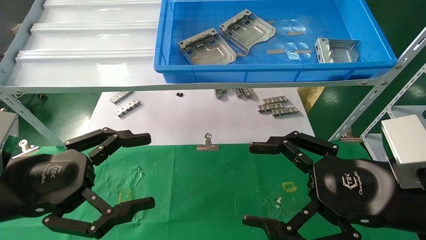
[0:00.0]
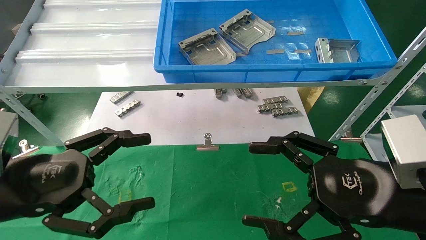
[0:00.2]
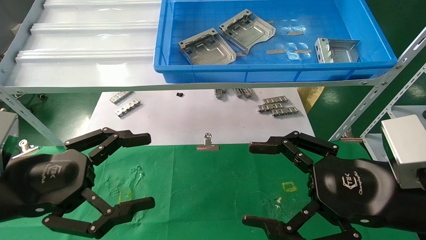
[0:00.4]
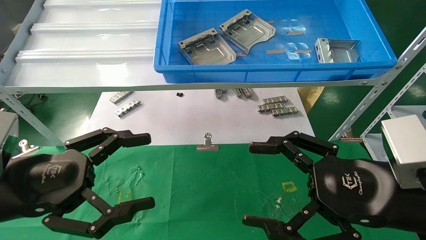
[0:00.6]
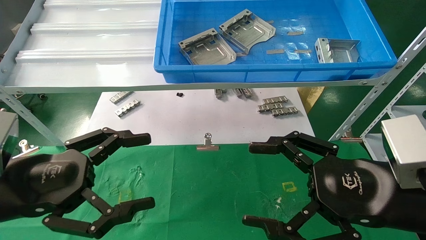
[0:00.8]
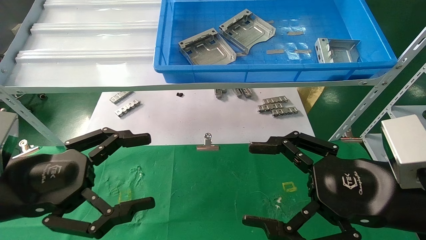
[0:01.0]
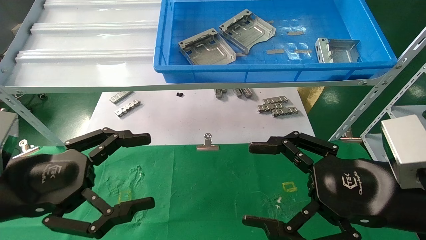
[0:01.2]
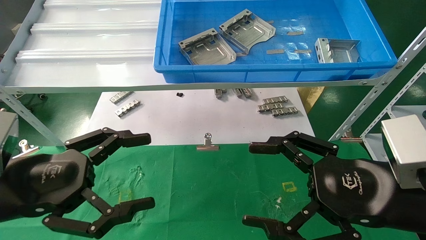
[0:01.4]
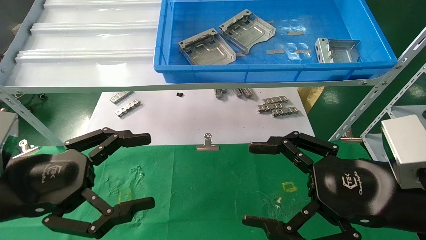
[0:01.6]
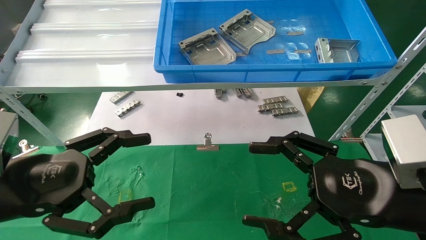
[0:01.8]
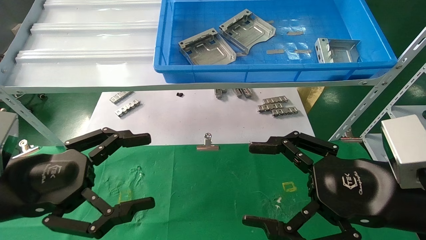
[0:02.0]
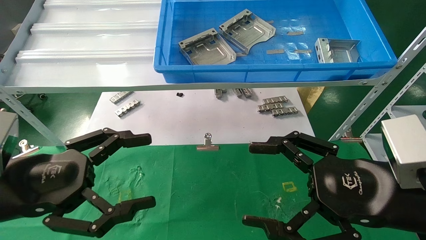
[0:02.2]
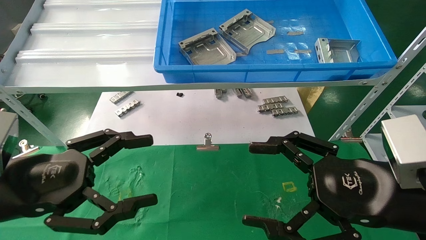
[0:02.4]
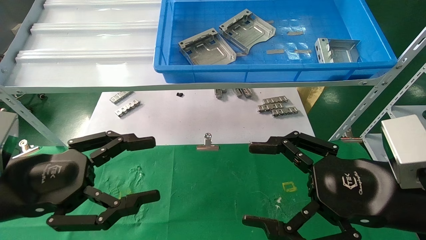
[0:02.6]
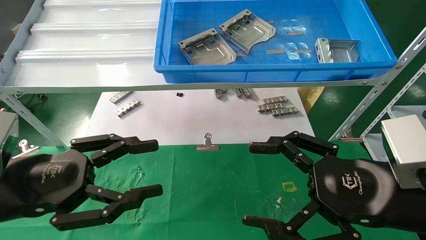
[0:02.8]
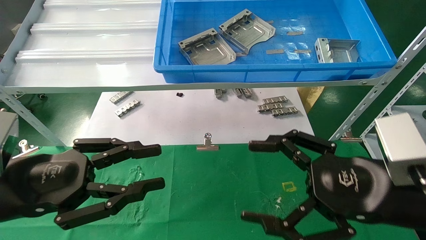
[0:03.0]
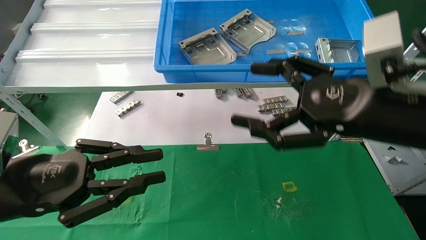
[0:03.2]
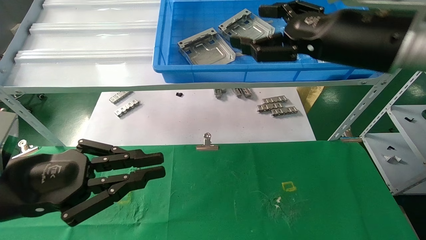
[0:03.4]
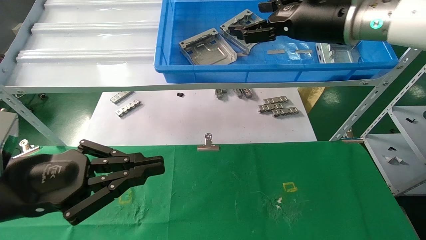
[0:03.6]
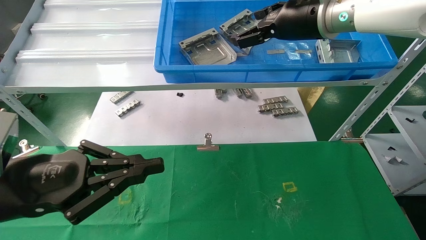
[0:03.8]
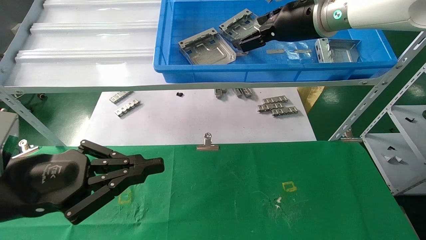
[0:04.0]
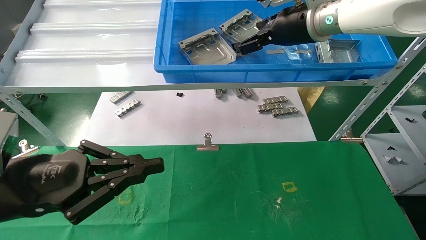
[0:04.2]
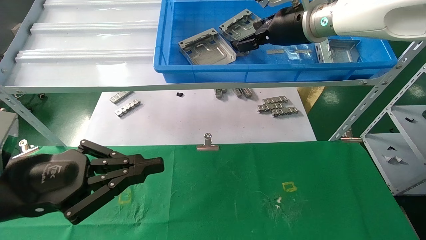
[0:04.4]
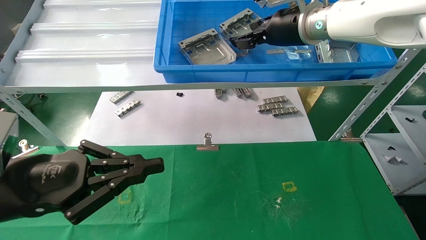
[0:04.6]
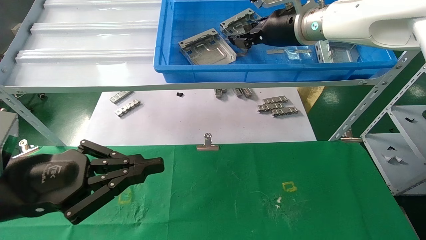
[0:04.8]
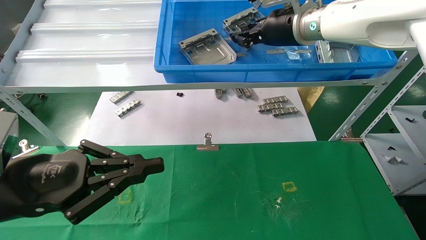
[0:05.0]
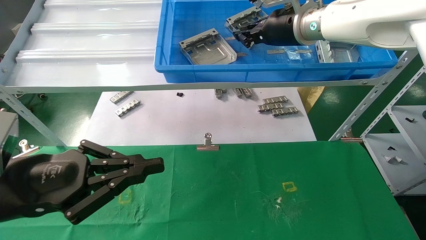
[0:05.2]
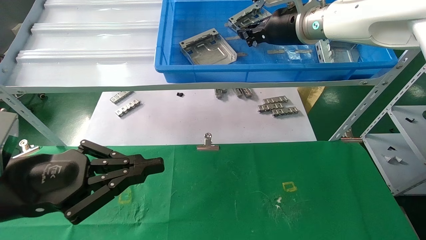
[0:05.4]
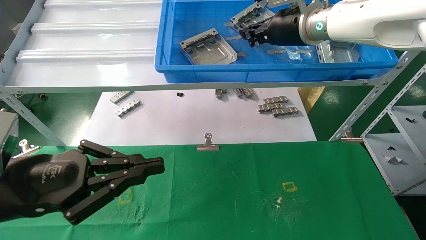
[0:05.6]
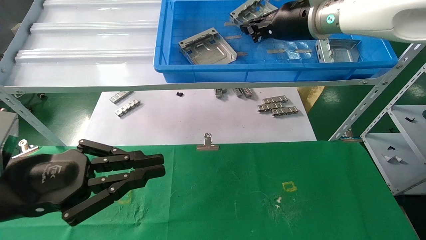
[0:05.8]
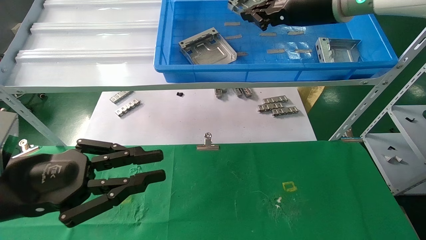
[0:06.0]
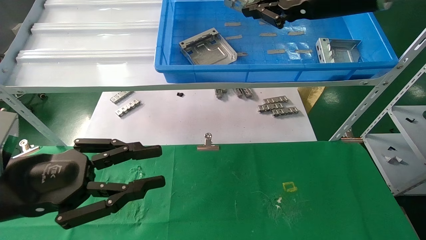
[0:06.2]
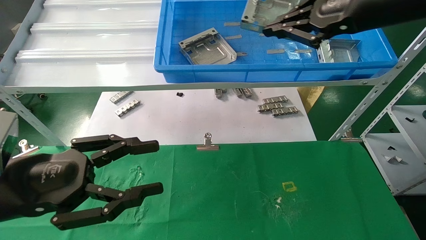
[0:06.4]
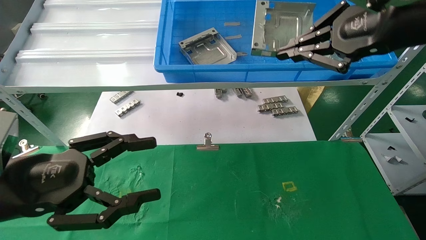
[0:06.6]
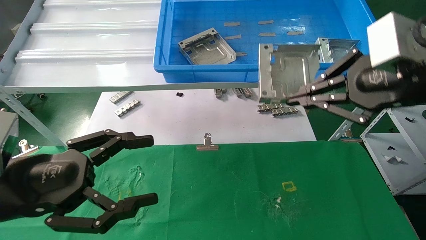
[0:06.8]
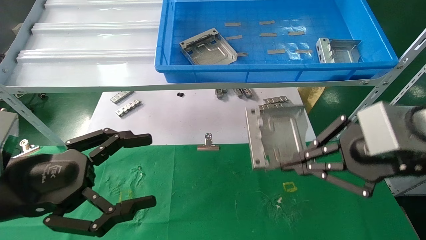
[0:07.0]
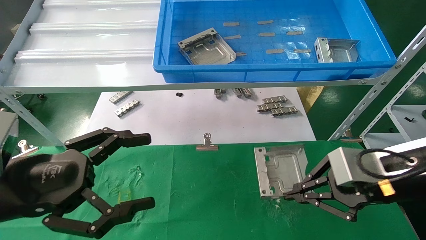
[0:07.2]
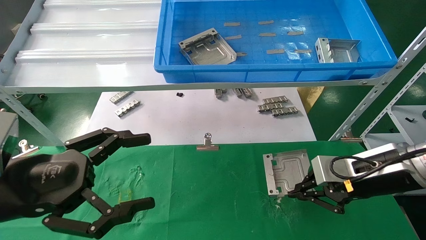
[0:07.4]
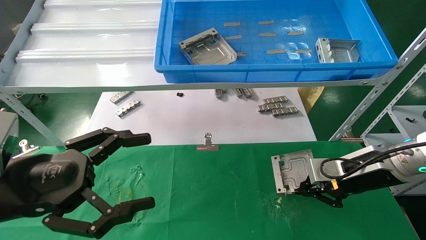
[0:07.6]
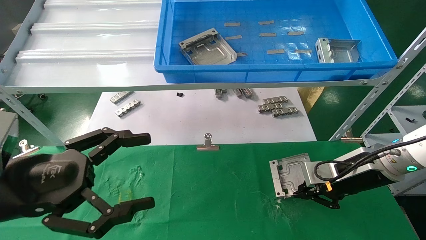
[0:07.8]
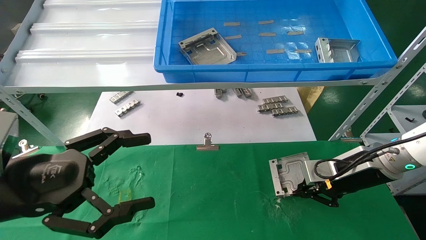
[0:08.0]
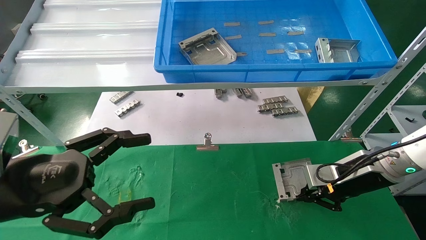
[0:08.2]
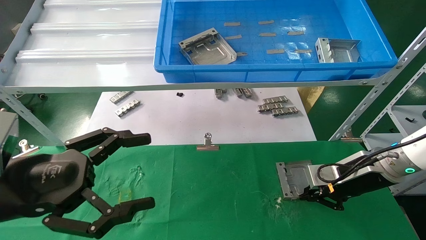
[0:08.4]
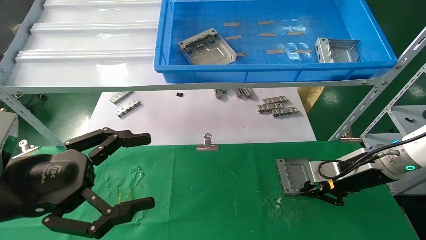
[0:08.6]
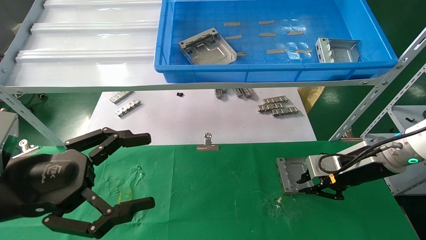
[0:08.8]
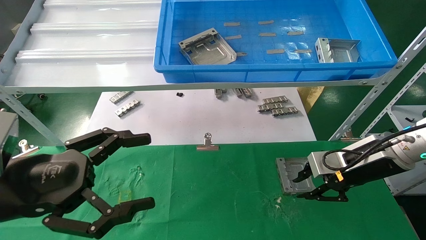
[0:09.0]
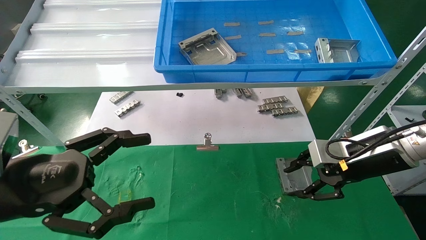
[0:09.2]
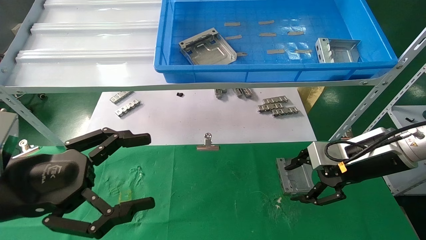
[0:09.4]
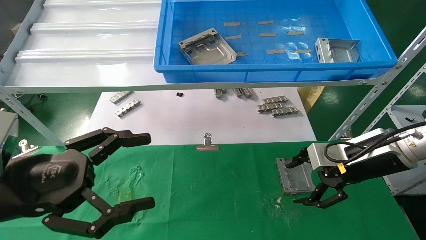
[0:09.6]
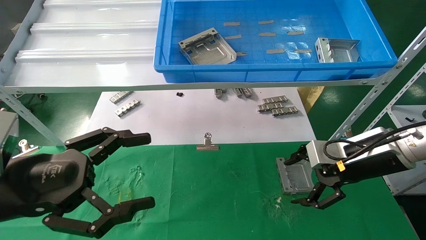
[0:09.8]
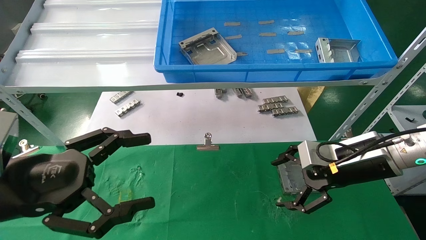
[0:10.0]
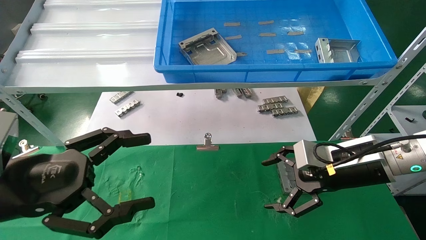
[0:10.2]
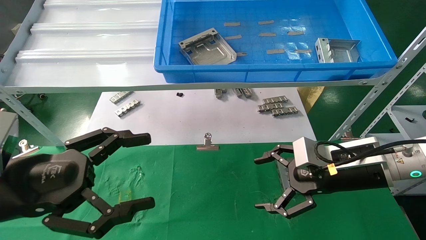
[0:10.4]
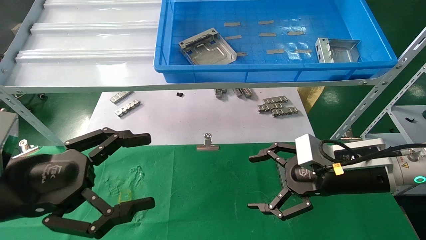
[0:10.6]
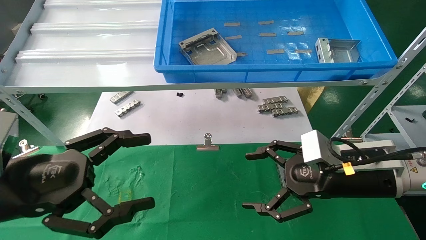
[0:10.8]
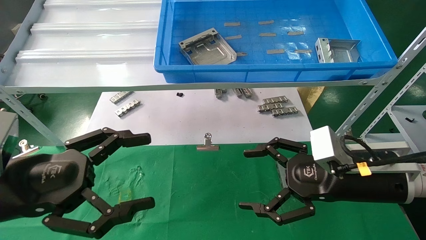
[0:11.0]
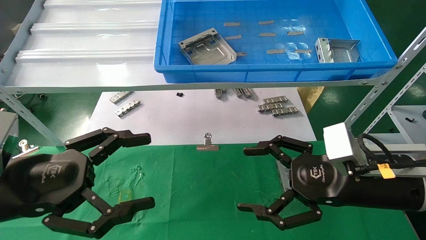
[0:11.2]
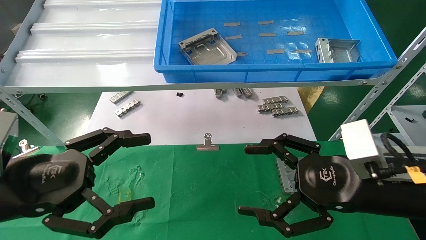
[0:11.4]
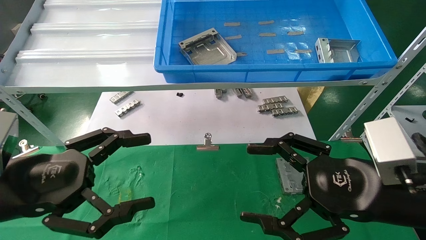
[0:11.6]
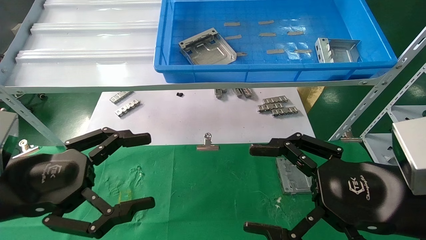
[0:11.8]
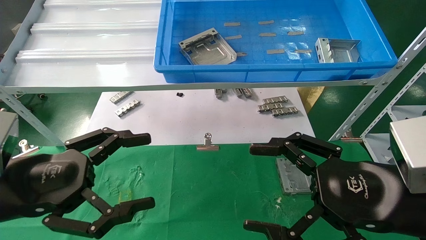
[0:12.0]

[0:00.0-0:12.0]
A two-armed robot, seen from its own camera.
Task of the whole recording: use the mechanical arm to pick up the parts and place them on the table.
Step, 0:02.0 to 0:06.6: Pick up the hard drive bracket from the feeding area.
Step, 0:06.8 to 0:09.4: Place the hard drive bracket into the box.
0:00.0 to 0:01.6: The two grippers keep their place.
0:01.6 to 0:03.0: The left gripper closes its fingers.
0:03.0 to 0:04.4: The left gripper closes up; the right gripper moves forward and upward, approximately 25 cm.
0:04.4 to 0:06.0: The right gripper shifts by some 5 cm, and closes its fingers.
0:06.0 to 0:07.6: The left gripper opens its fingers; the right gripper heads downward and to the right, covering some 30 cm.
0:07.6 to 0:09.0: The grippers make only small movements.
0:09.0 to 0:10.4: The right gripper shifts about 5 cm to the left, and opens up.
0:10.4 to 0:12.0: The right gripper is displaced backward by approximately 15 cm.
